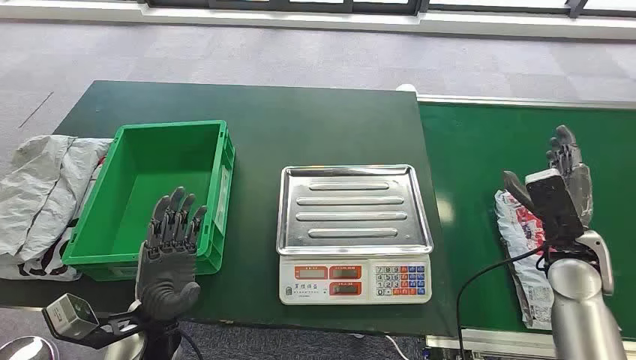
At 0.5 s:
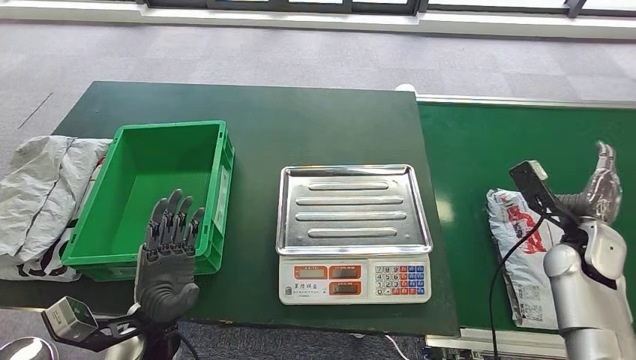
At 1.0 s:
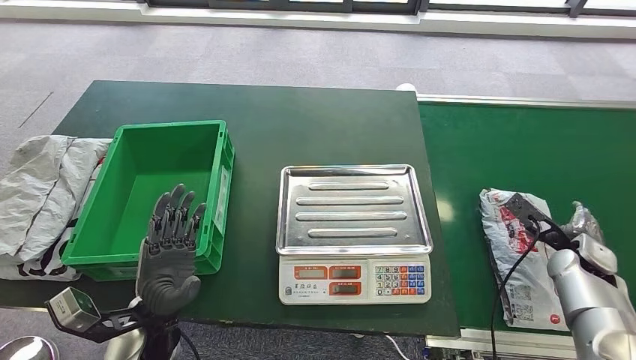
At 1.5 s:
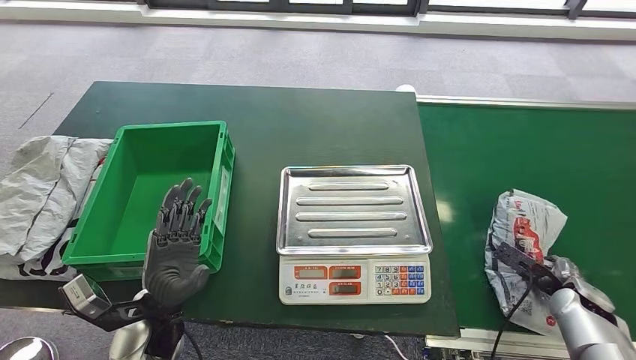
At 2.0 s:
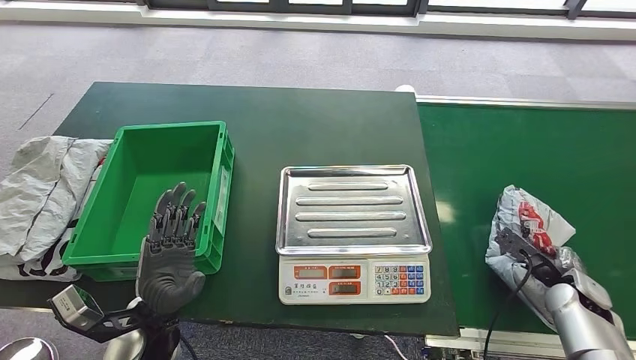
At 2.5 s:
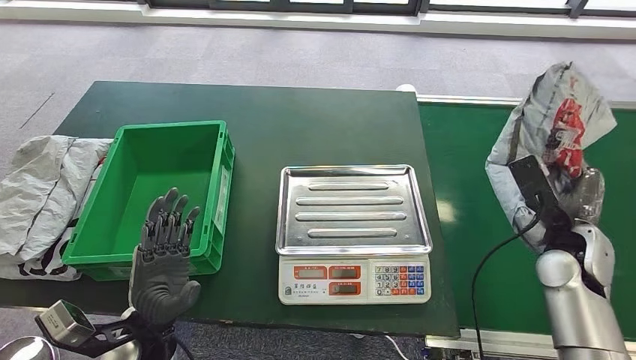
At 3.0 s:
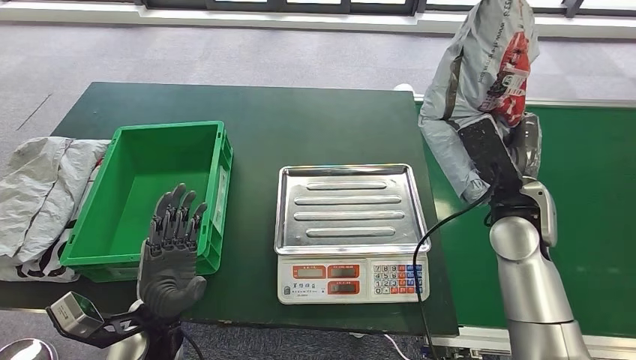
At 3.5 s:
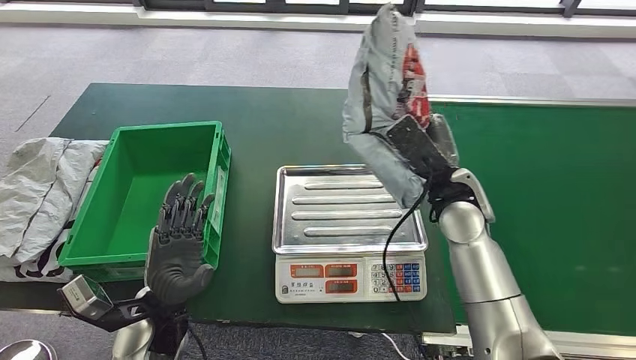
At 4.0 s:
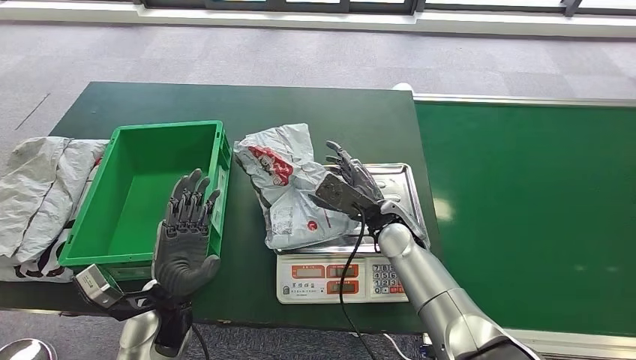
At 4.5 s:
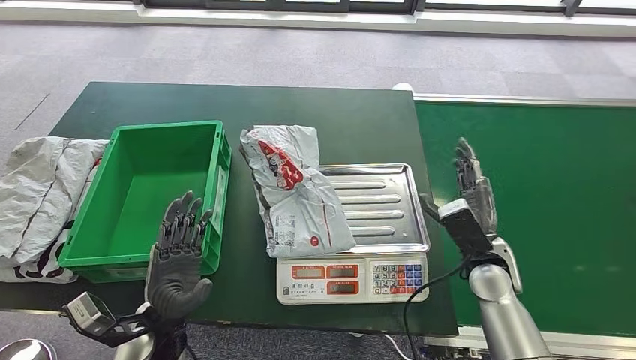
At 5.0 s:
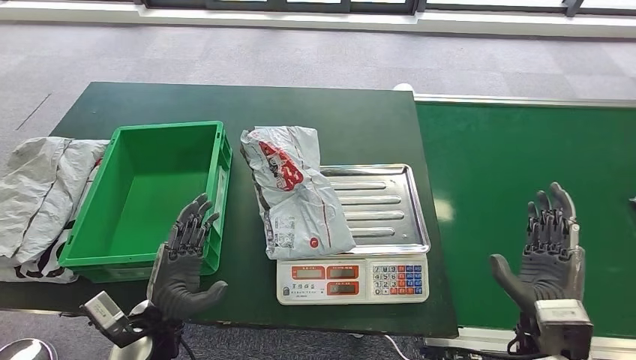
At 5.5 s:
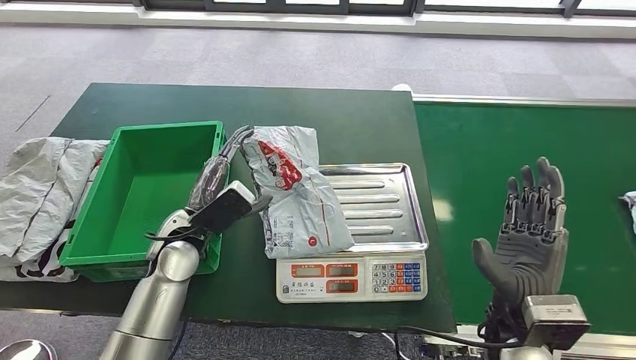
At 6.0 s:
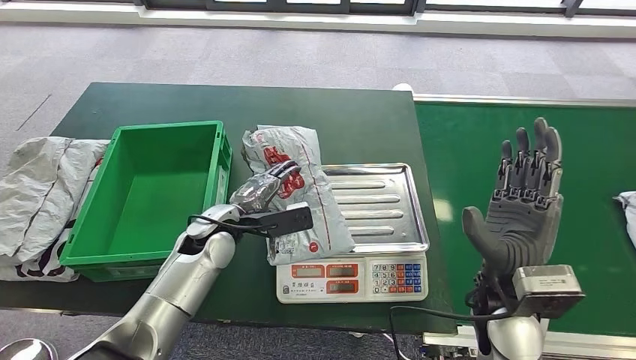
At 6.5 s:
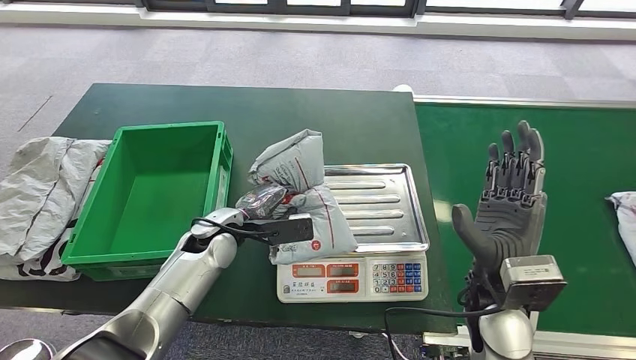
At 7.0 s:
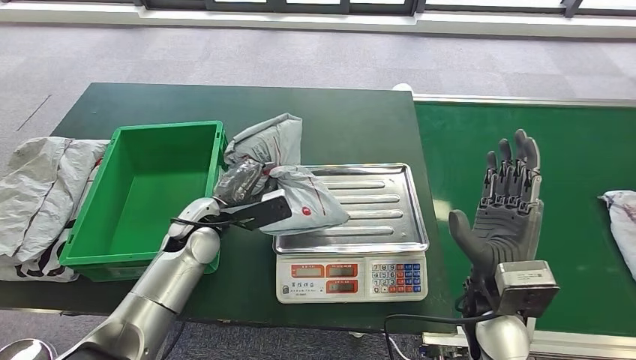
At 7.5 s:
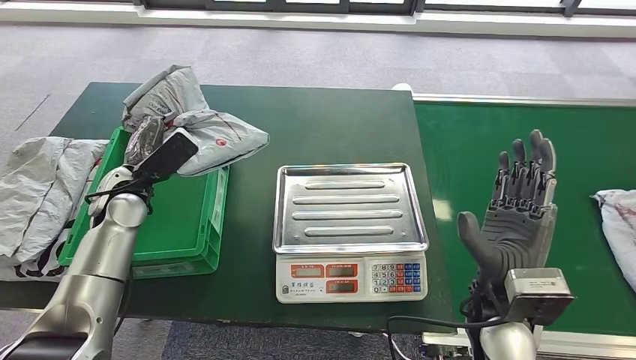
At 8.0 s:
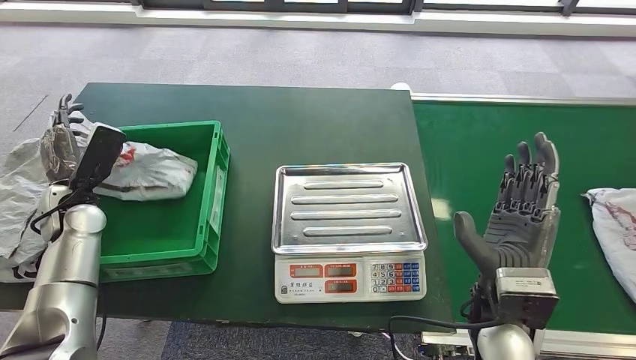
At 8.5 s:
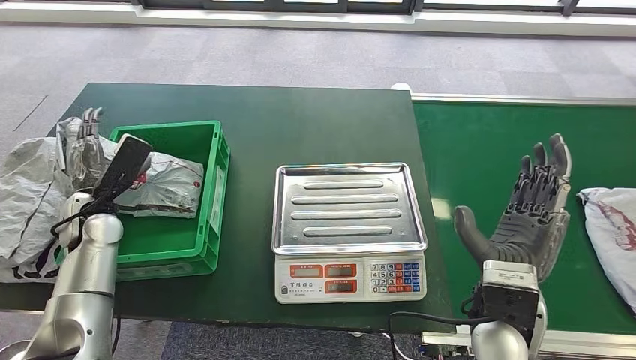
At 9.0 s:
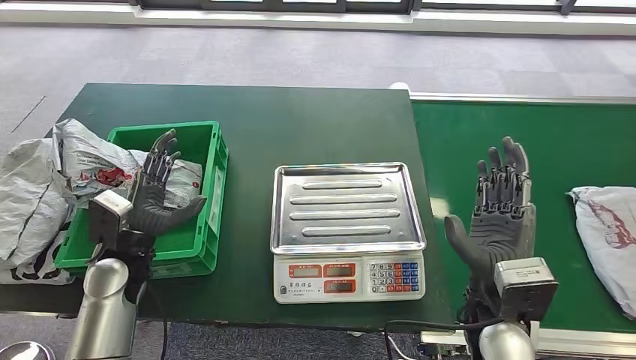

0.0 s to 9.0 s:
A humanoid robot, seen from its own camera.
Step, 0.0 to 2.5 s: Take the parcel off the conveyor belt.
Step, 3.0 to 4.5 s: Place the parcel onto the inbound machine.
Step, 5.0 to 7.5 s: Pick up the parcel from the inbound machine.
Step, 8.0 to 8.5 s: Put the parcel inside the courier box.
